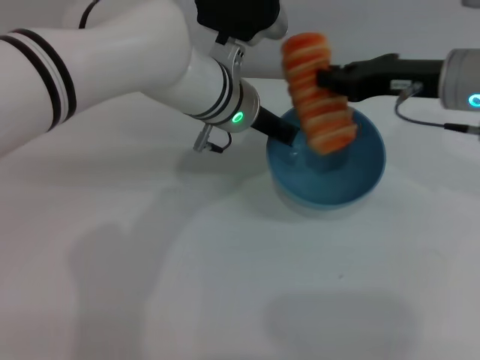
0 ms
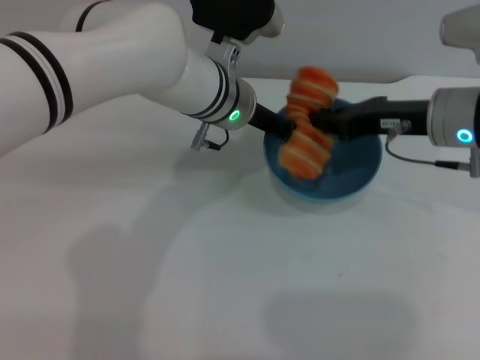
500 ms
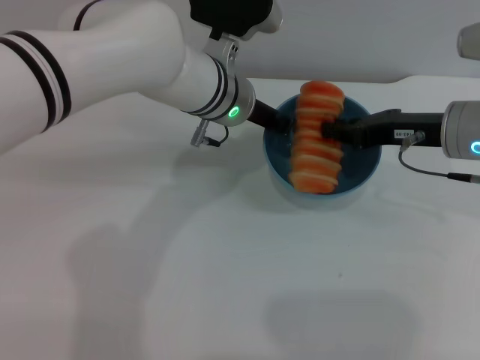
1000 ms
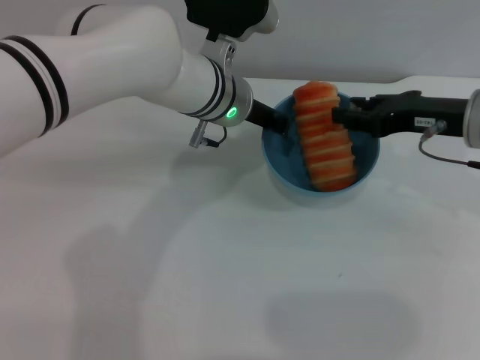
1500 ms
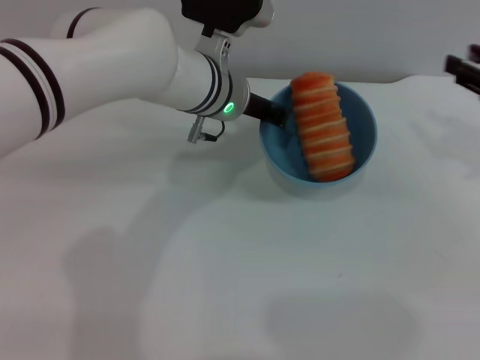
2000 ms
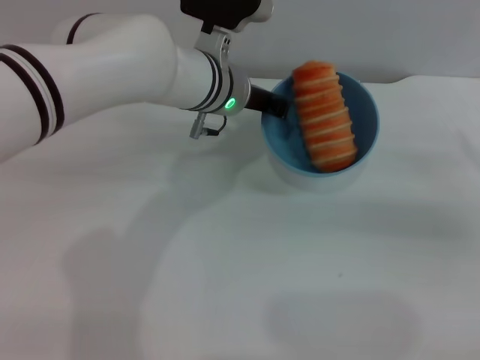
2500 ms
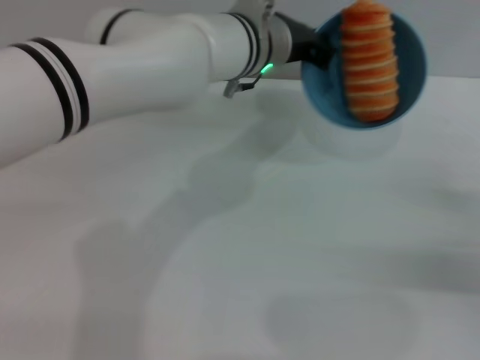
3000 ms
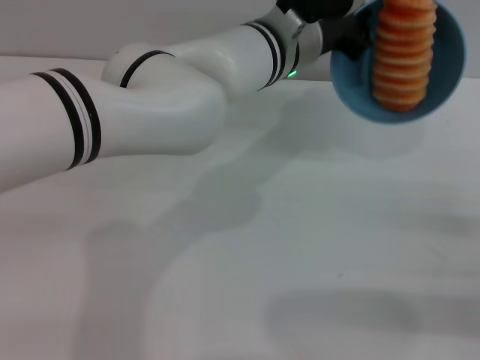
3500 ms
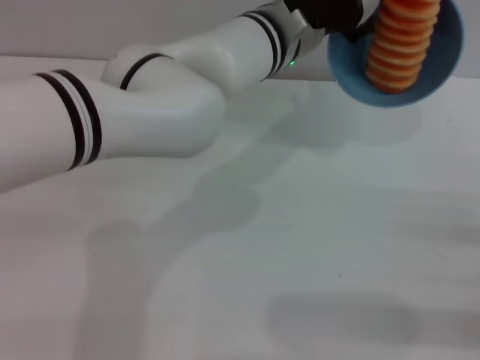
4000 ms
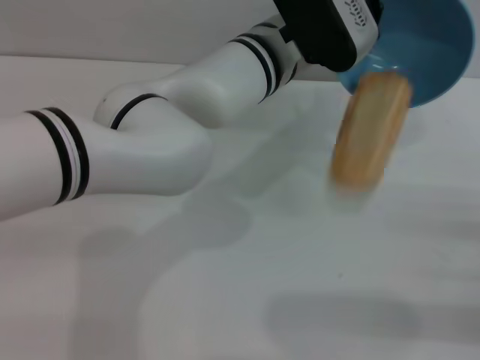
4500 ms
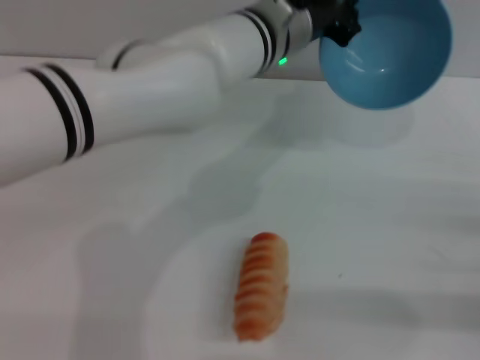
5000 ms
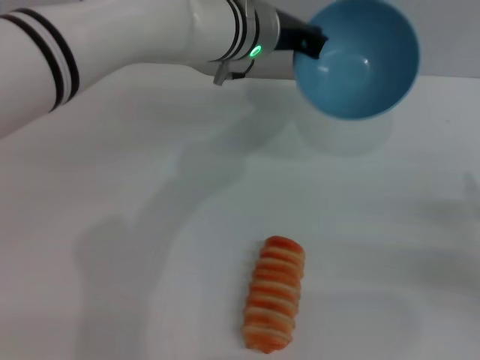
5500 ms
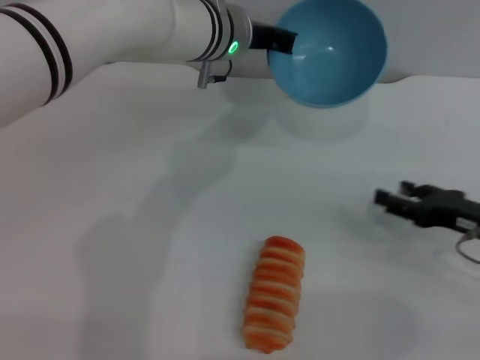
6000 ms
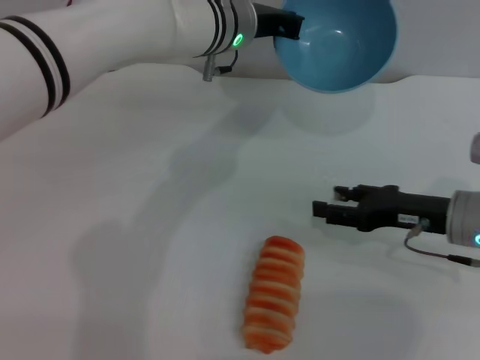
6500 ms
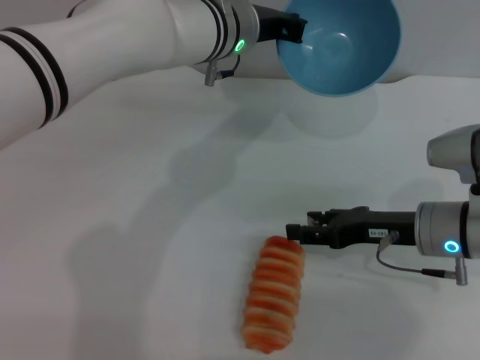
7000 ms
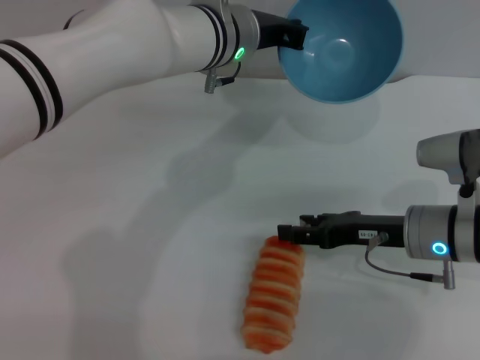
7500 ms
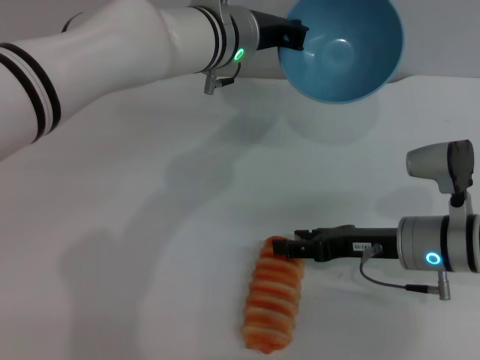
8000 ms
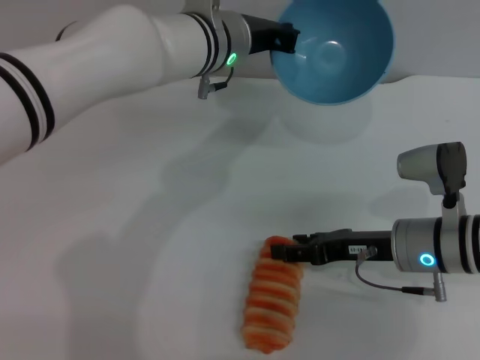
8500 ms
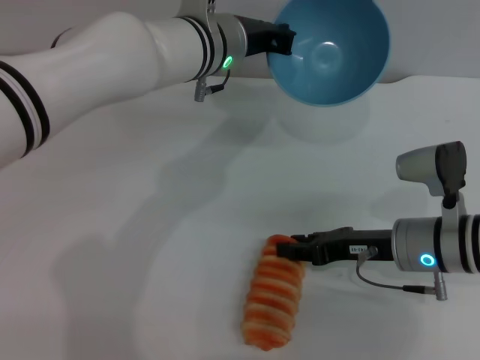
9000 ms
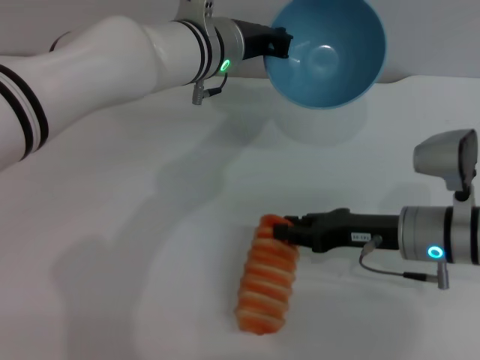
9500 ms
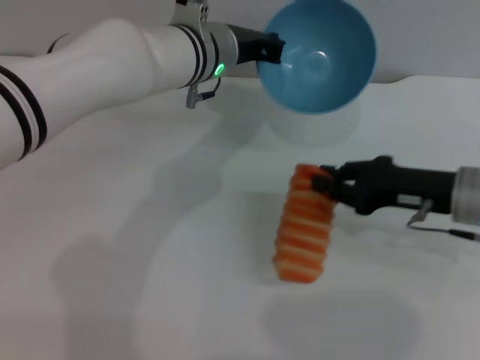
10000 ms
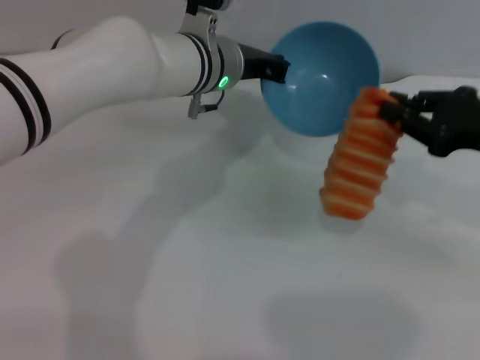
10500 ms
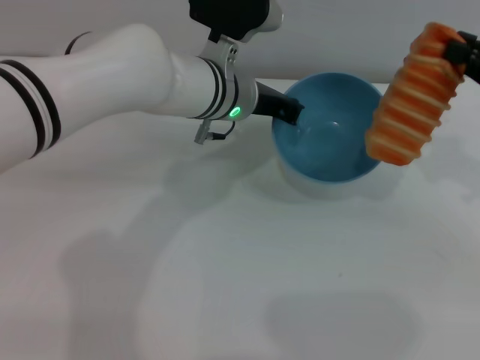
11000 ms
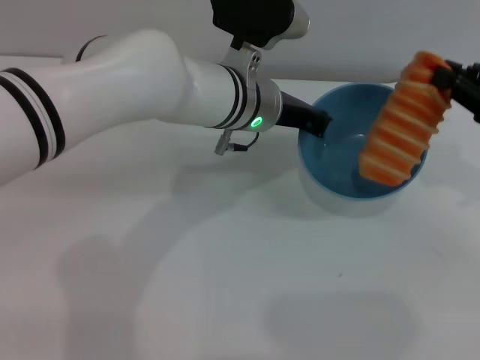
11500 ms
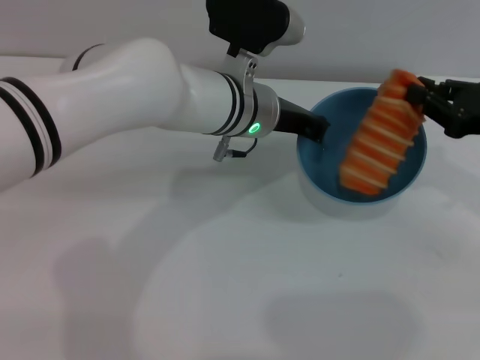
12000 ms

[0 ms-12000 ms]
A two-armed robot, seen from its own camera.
Task of the whole recording: put the bread into the blue bowl and pour it out repeatedly.
Step, 0 ms to 1500 ms: Place the bread into the bowl.
Step, 2000 ms to 4500 ms: Pour the bread out of the bowl.
Step, 5000 ms to 9500 ms: Pick up the bread with the right gripper.
0 ms to 2000 ms: The right gripper heads to the right, covering roughly 15 cm, and opens.
2000 ms to 4000 ms: The right gripper is displaced backward and downward by about 20 cm; the left gripper is displaced to the right by approximately 5 cm.
4000 ms to 6000 ms: The right gripper is displaced forward and to the left by approximately 10 cm. Meanwhile the left gripper is displaced to the left by approximately 5 cm.
6000 ms to 8000 ms: The right gripper moves to the left, some 10 cm.
8000 ms to 10000 ms: The right gripper shifts approximately 5 cm upward, and closes up.
10000 ms to 12000 ms: The right gripper goes some 5 cm to the right. Meanwhile the left gripper shifts by about 5 cm.

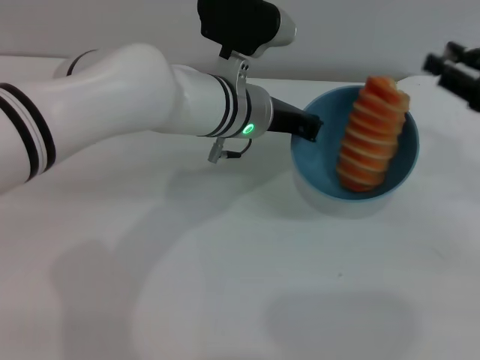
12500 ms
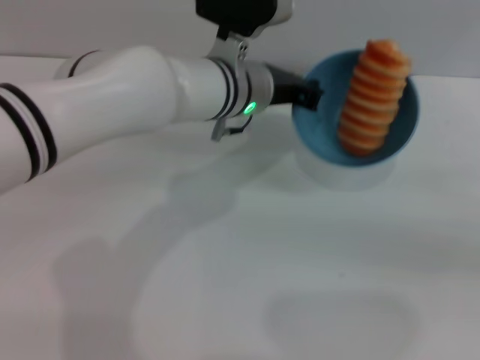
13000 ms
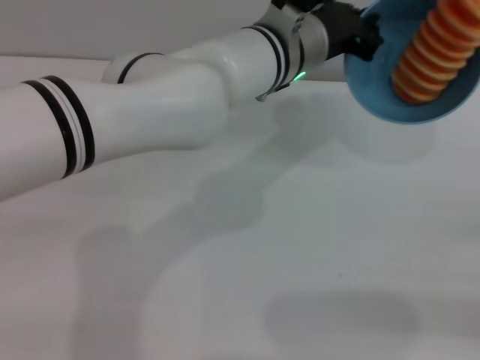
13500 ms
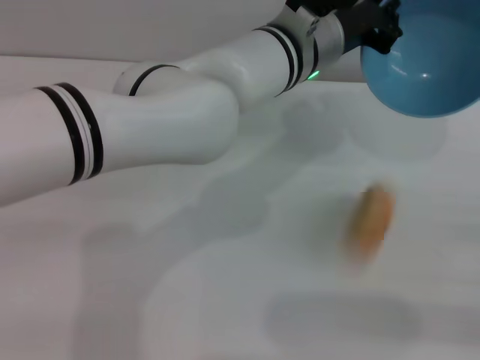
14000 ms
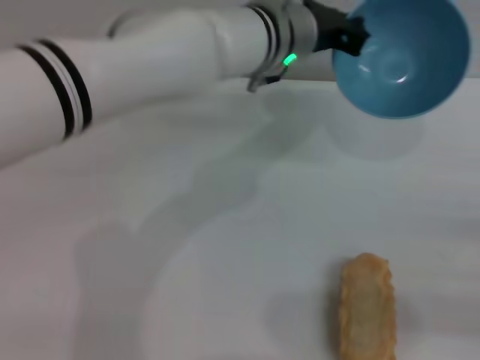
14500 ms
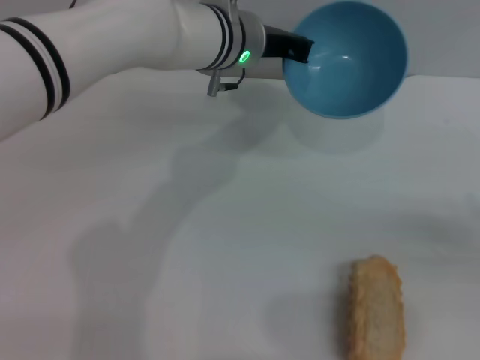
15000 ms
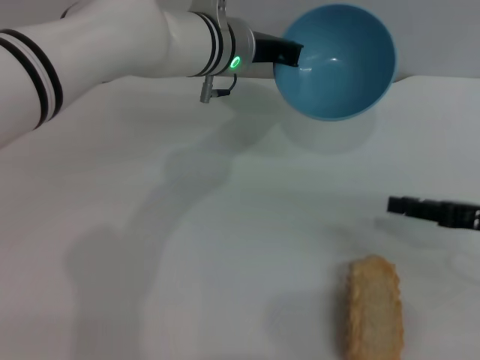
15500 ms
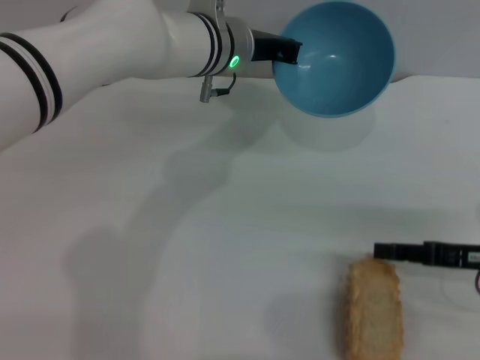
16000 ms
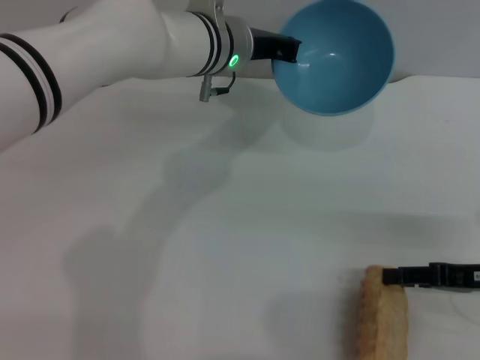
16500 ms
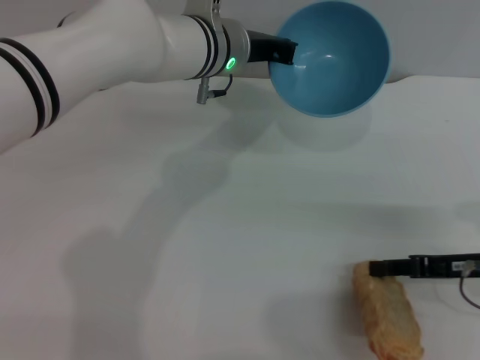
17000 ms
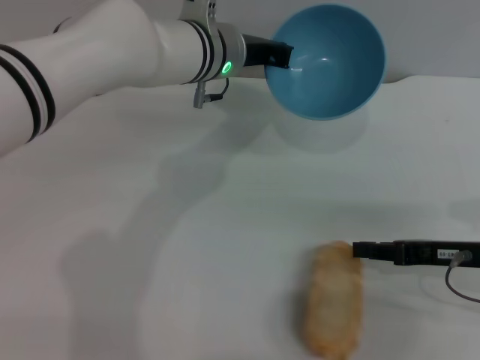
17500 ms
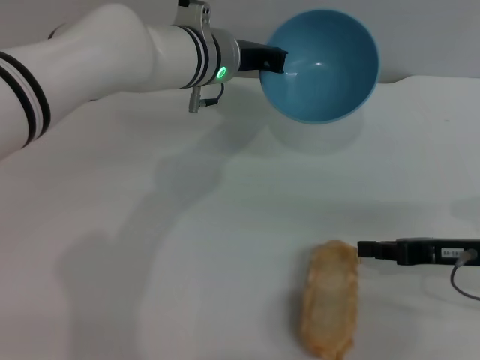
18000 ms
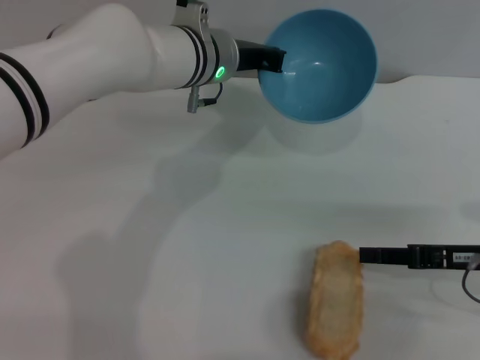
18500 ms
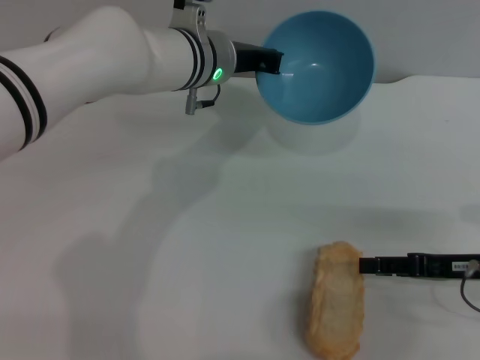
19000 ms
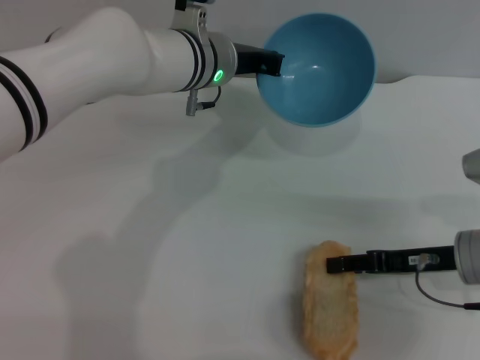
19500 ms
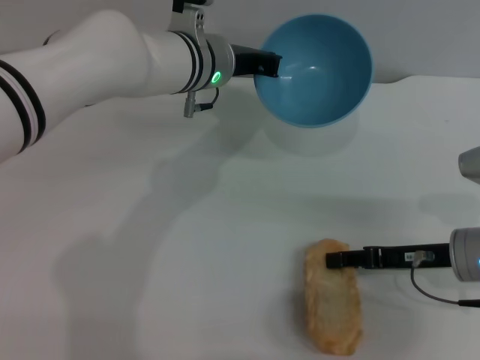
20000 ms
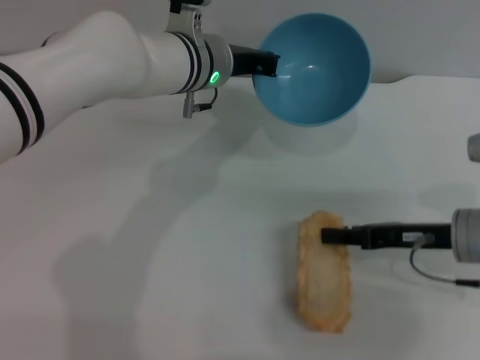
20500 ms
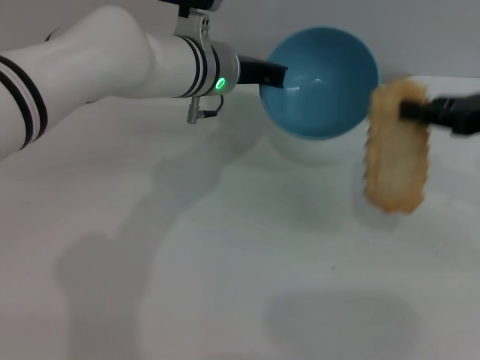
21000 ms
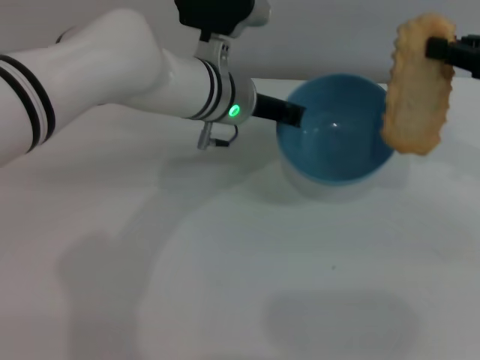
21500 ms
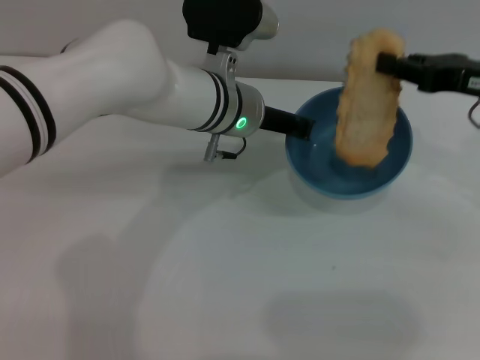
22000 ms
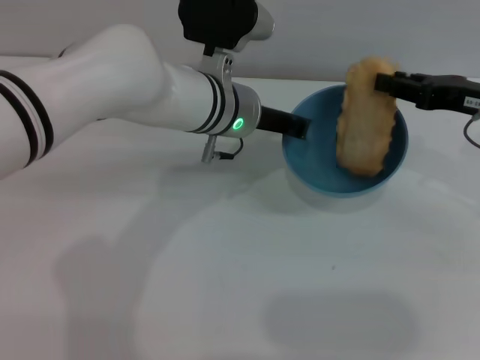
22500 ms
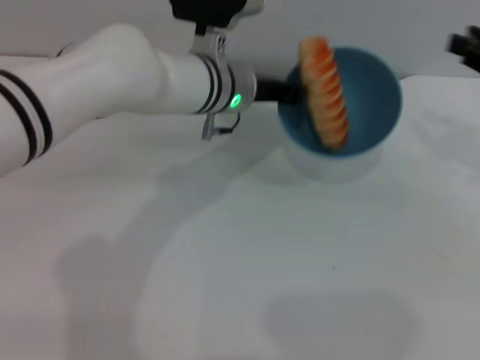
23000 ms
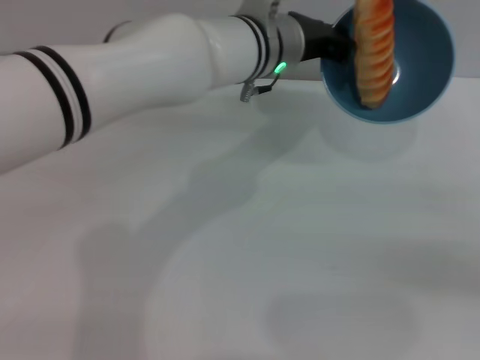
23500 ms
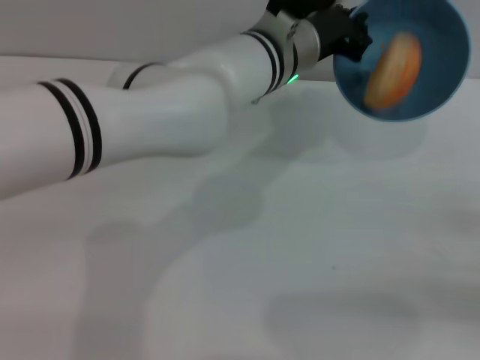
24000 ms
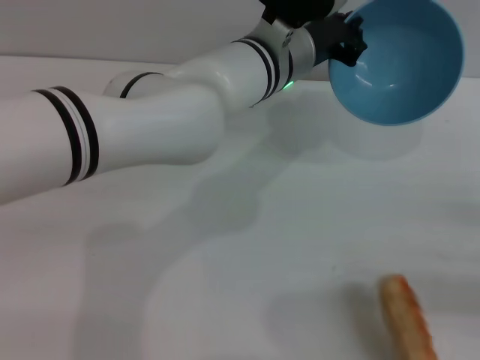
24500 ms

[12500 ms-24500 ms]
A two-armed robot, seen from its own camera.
Task of the whole recording: put the bread into the blue bowl and pour it out repeatedly.
Step, 13000 ms to 14500 ms: Pour the bread out of the bowl.
Step, 15000 ms to 20500 ms: Pick up the bread with the right gripper.
Step, 21000 ms to 22500 ms: Place the bread into the bowl.
12500 ms to 14500 ms: The right gripper heads backward, to the right and downward, covering approximately 15 cm. Meanwhile the left gripper shifts roughly 5 cm upward.
14500 ms to 16500 ms: The right gripper heads to the left and forward, covering some 10 cm. The left gripper is displaced to the left by approximately 5 cm.
16500 ms to 18500 ms: The grippers move only a little.
18500 ms to 20500 ms: The right gripper moves some 5 cm.
20500 ms to 22500 ms: The right gripper is displaced upward and forward by about 10 cm.
22500 ms to 24500 ms: The right gripper travels backward, to the right and downward by approximately 20 cm; the left gripper changes place by some 5 cm.

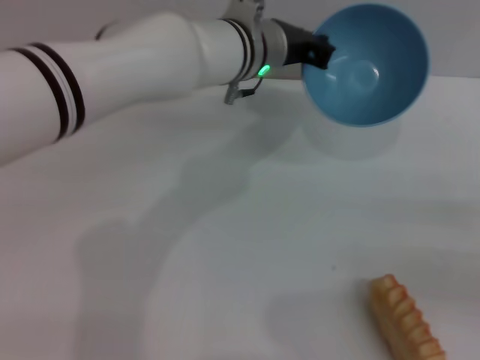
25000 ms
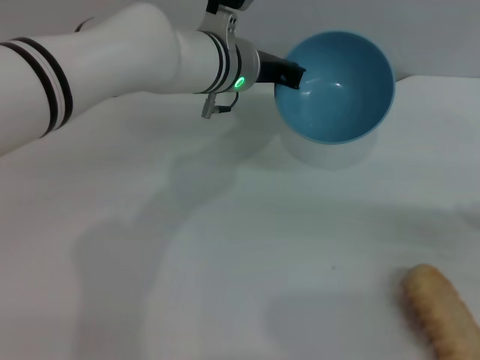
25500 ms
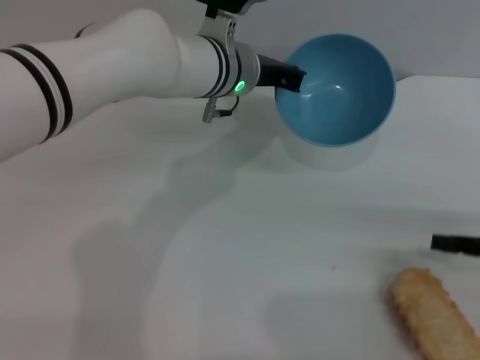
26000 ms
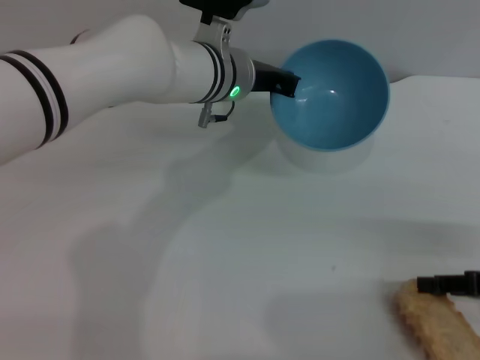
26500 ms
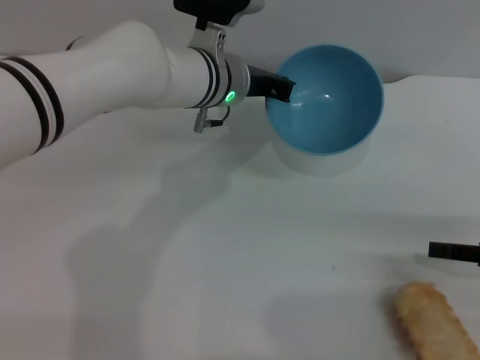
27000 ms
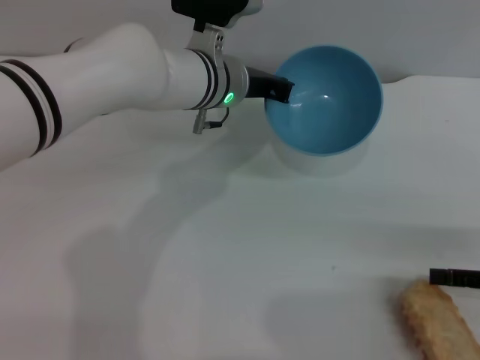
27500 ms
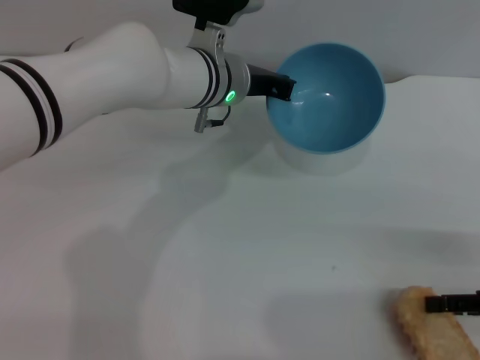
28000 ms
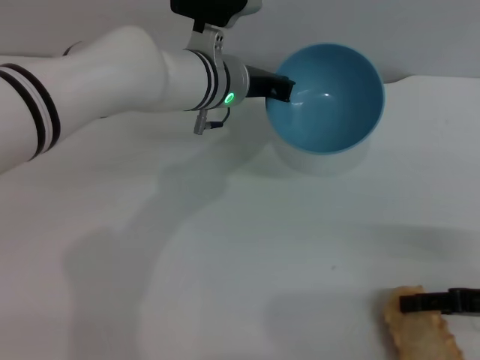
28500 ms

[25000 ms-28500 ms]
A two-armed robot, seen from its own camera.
Task of the whole recording: put the bread into the blue bowl and pour it out repeatedly.
27000 ms to 28500 ms: The right gripper opens its fingers.
